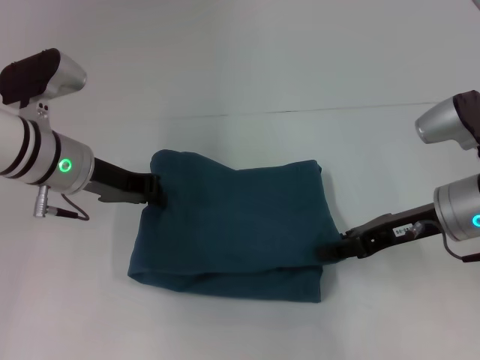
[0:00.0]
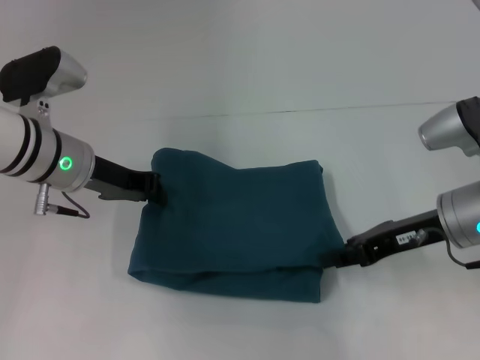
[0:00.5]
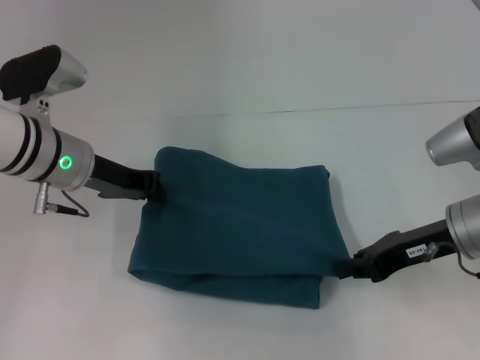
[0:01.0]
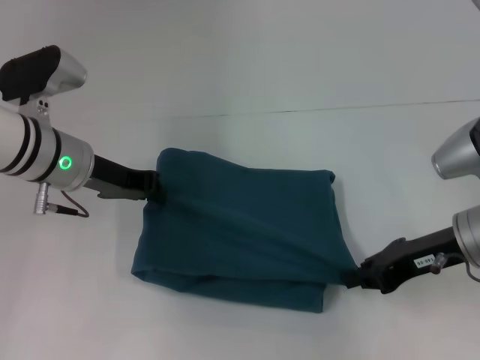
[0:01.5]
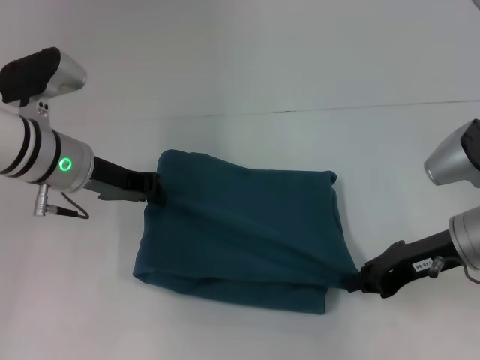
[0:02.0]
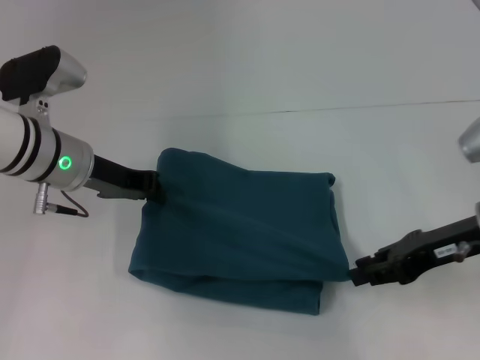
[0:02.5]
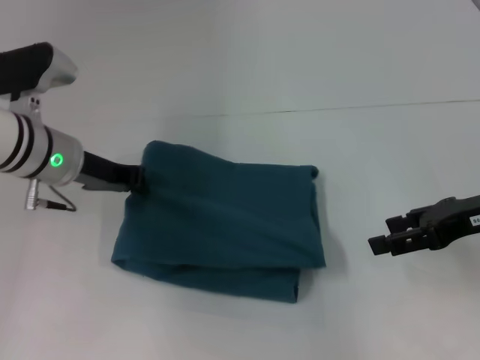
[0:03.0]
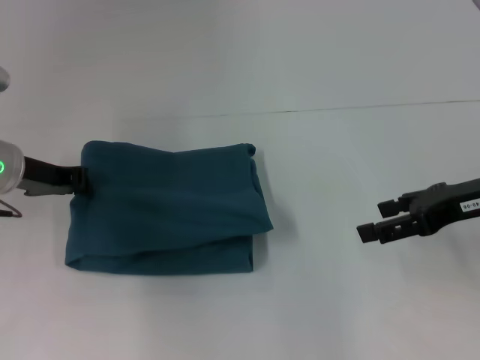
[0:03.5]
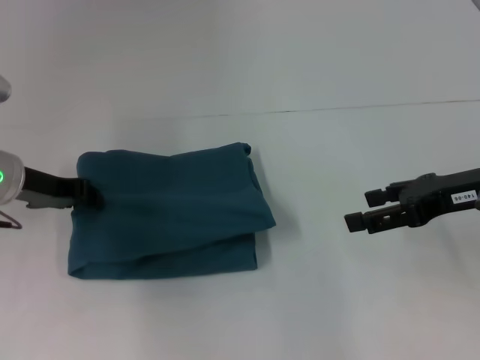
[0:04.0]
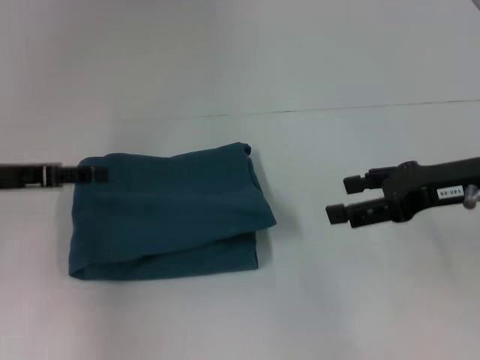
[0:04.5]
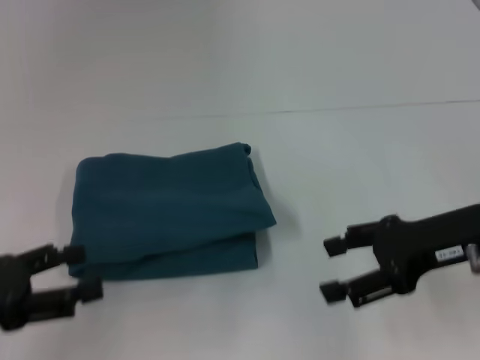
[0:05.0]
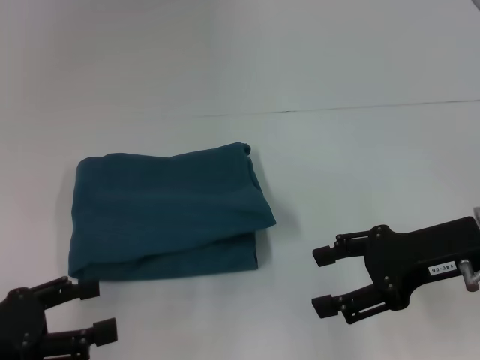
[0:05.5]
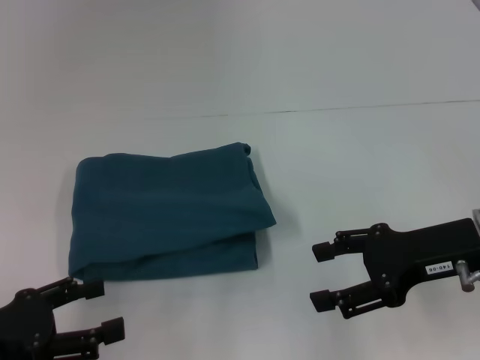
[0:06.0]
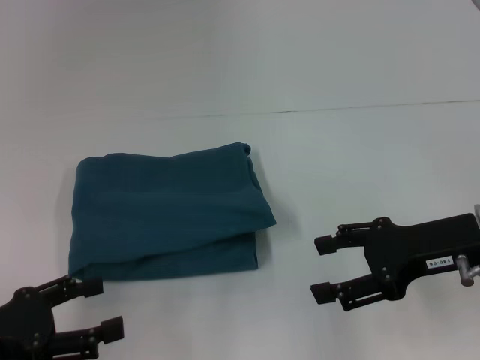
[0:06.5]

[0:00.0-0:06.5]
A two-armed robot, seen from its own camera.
0:00.0 to 0:02.0: The right gripper closes.
0:02.0 to 0:04.5: The left gripper shifts about 10 cm to the left and backward, and opens up. Meanwhile the right gripper shifts some 5 cm upward, and opens its fingers.
0:04.5 to 0:06.5: The left gripper heads backward and downward, covering approximately 15 cm, and opens its fingers.
